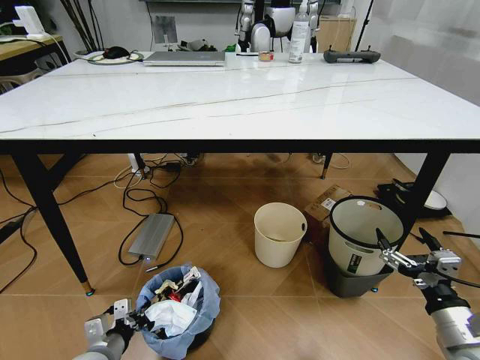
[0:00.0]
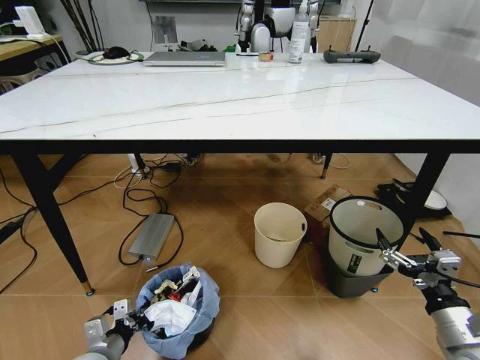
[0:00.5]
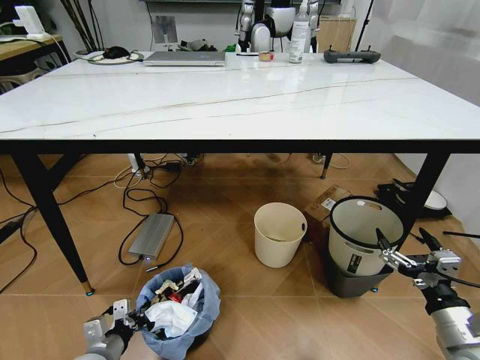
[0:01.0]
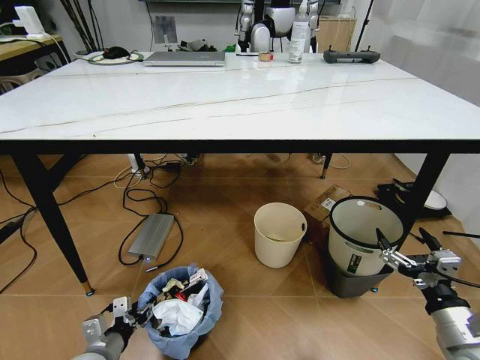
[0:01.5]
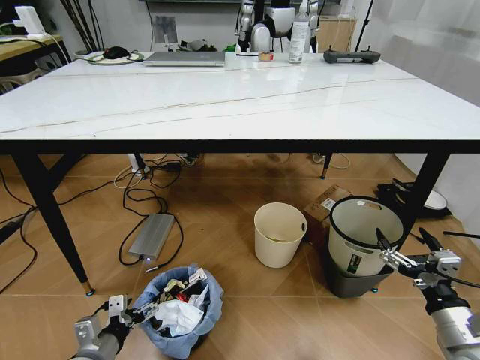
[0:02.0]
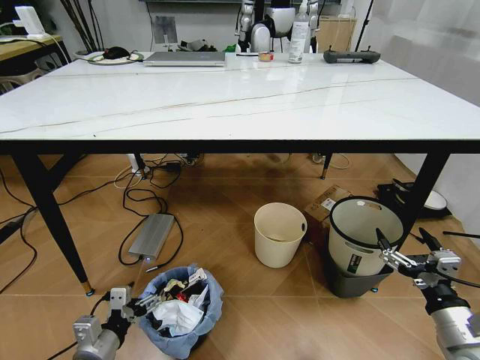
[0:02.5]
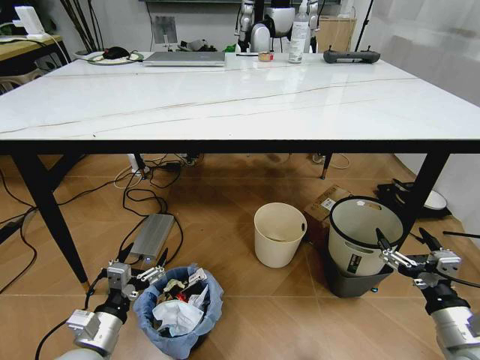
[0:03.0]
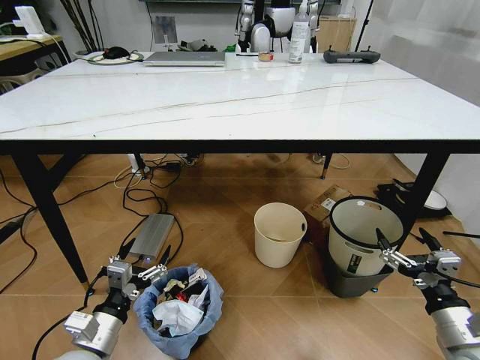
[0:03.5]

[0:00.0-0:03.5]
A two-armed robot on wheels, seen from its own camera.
Task of the whole recording: Pick up the trash bin and place the trash from the table into it.
0:00.0 to 0:02.0: The left gripper opens its fingers.
0:02.0 to 0:03.5: The left gripper heads upward, covering about 5 cm.
